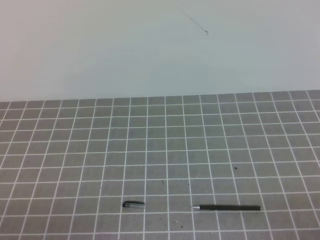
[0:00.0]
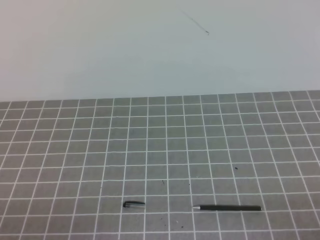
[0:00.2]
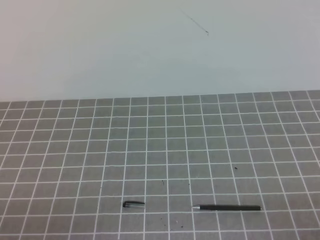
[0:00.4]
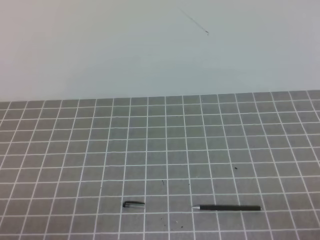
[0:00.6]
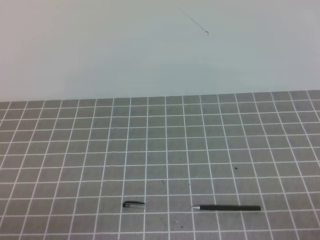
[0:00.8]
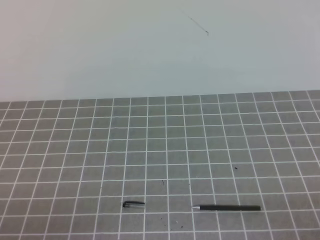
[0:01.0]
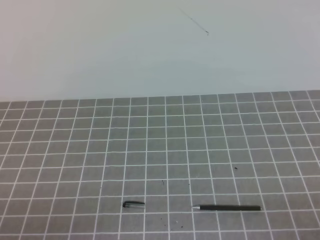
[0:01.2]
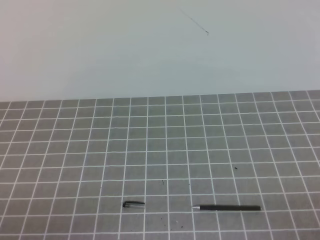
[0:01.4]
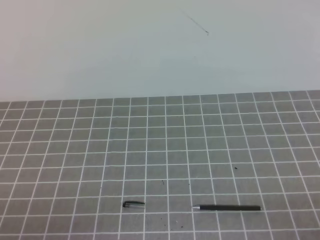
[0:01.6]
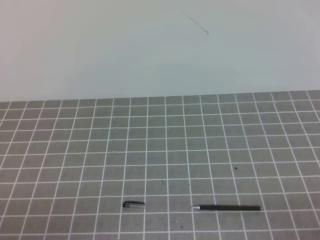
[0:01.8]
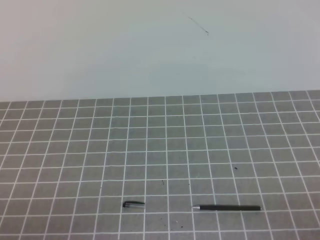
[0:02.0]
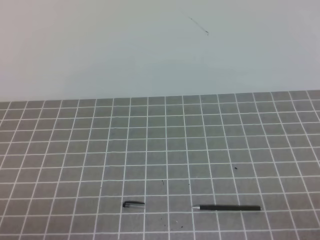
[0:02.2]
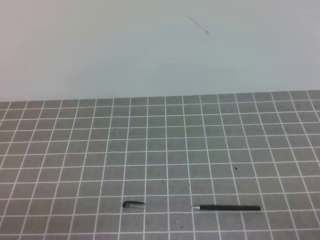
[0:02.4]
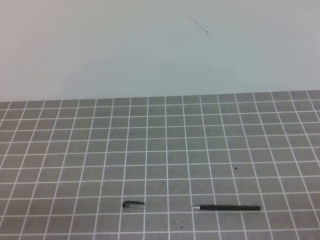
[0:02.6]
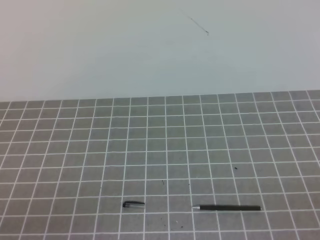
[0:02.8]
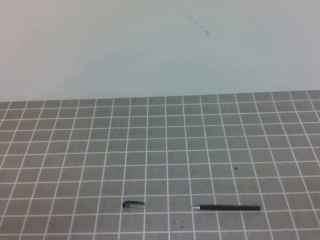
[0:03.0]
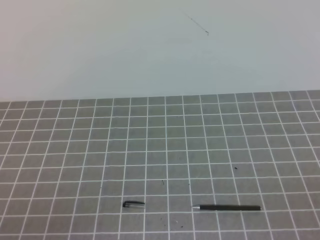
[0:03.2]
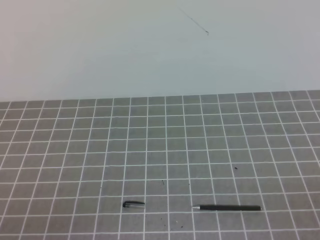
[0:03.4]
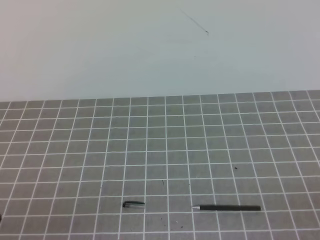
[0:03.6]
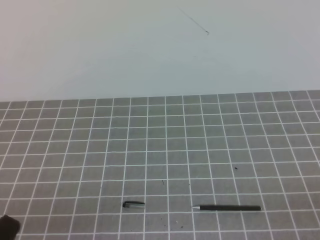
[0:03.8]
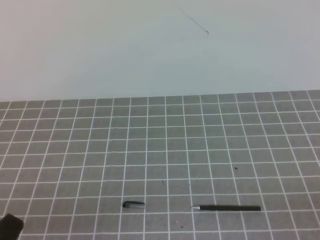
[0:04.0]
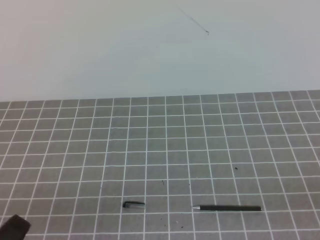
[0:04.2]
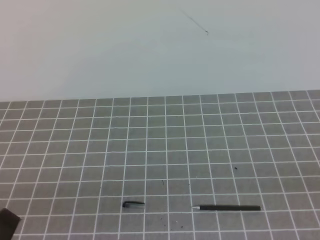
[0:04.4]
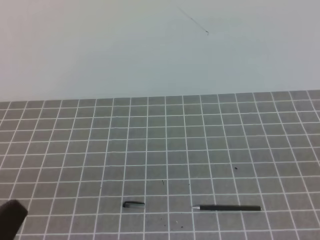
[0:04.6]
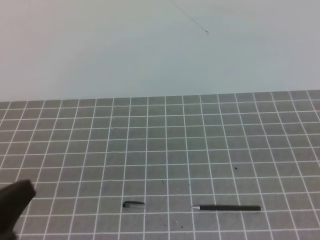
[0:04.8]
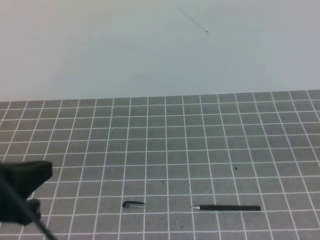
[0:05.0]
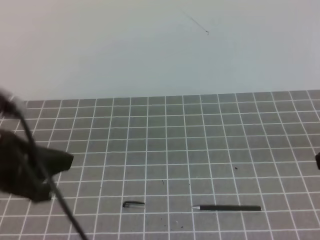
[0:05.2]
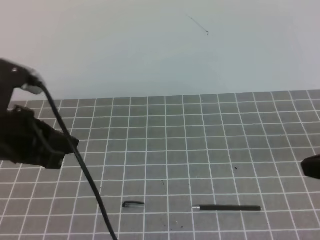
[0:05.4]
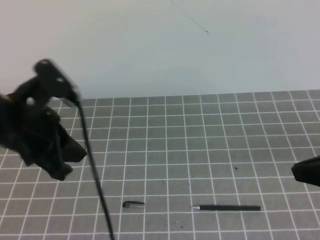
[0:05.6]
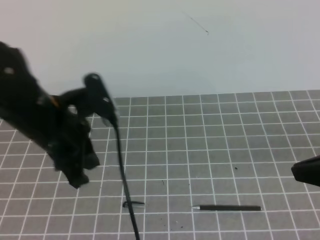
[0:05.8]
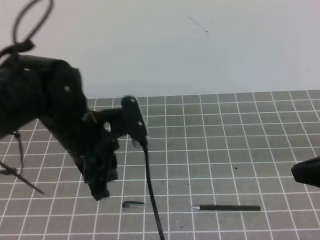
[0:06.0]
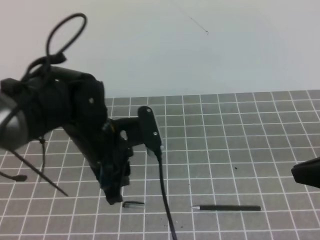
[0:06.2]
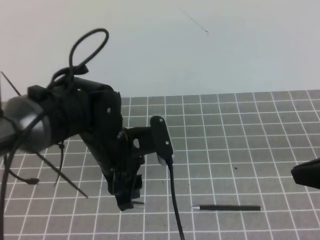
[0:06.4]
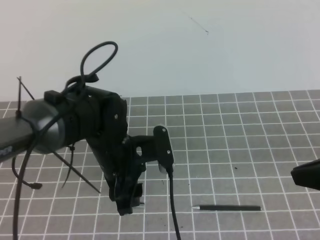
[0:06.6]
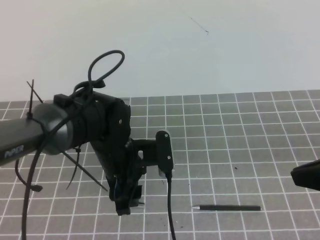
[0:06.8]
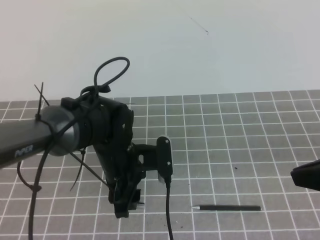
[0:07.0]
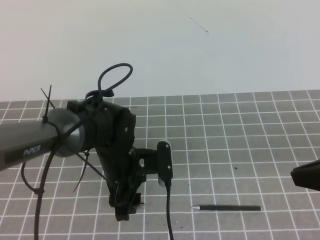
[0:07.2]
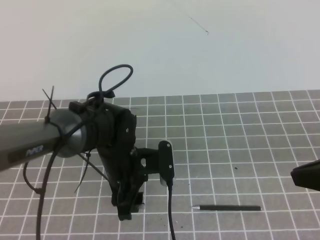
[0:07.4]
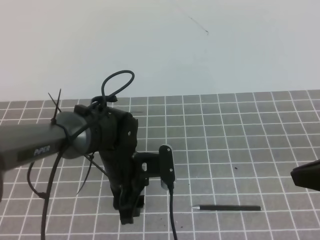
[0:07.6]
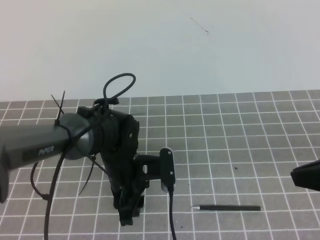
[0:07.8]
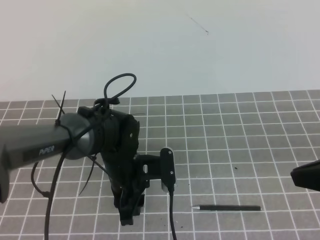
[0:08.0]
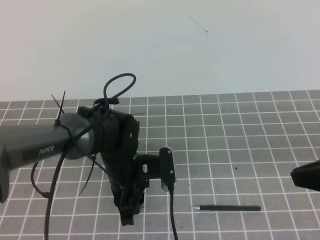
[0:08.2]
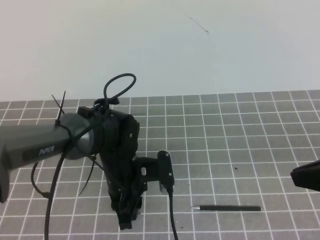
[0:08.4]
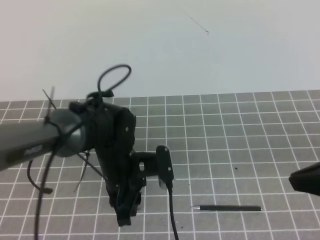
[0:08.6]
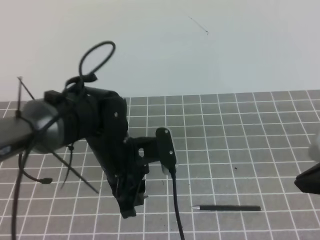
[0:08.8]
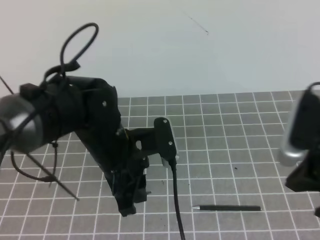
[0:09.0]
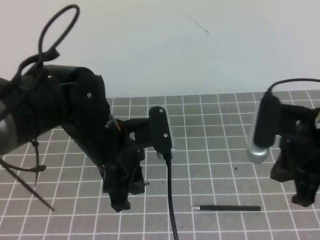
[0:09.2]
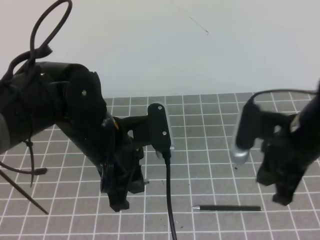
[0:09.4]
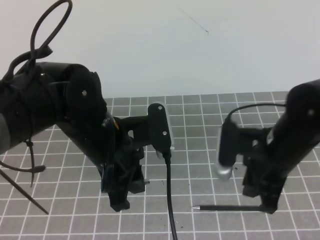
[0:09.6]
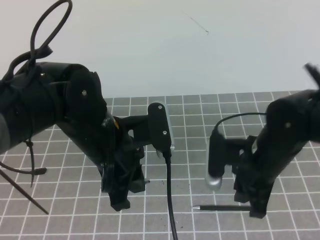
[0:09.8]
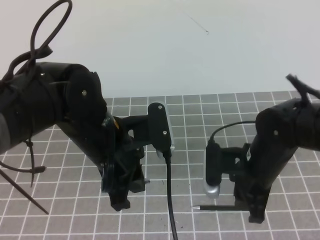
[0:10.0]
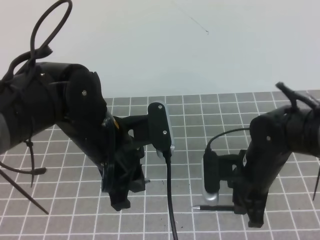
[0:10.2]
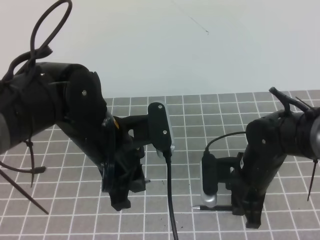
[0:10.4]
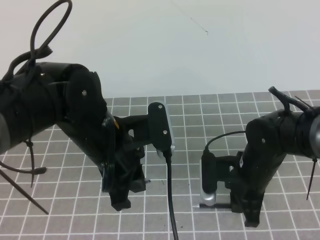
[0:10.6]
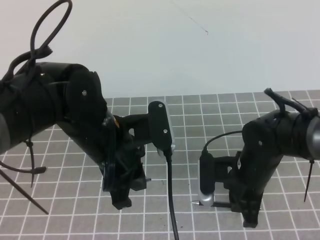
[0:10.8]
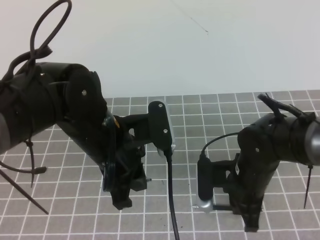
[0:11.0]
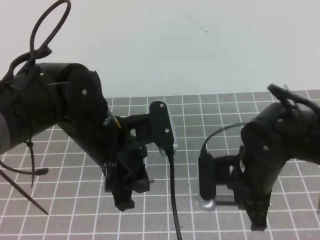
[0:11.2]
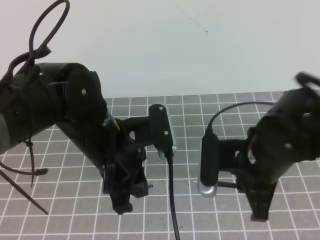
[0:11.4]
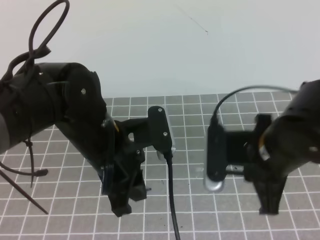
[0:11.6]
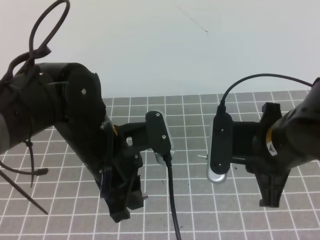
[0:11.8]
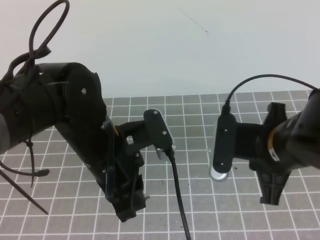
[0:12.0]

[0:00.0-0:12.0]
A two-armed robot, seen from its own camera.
Task of the whole recording: on the grey tablecloth, hold the pen cap in one hand and the pen in the other, then cover the pen cap.
Step, 0:00.0 to 0:05.4: Pick up the pen cap.
Step, 0:05.6 to 0:06.8: Pick up the pen.
Step, 0:07.0 to 0:10.6: Insert the pen into the cap.
Step, 0:10.8 to 0:11.4: Place the pen on the table.
0:00.0 to 0:01.6: Both grippers stay about where they are.
0:04.4 to 0:06.0: The right gripper travels forward and to the left by approximately 15 cm, while the left gripper shifts roughly 25 cm forward and to the right.
0:06.0 to 0:07.6: The left gripper goes about 15 cm downward and to the right, and opens.
0:07.6 to 0:09.0: The left gripper goes about 5 cm upward, and closes up.
0:09.0 to 0:10.4: The right gripper goes about 20 cm downward, forward and to the left, and opens up.
0:10.4 to 0:12.0: The right gripper goes about 15 cm upward and backward, and closes its fingers.

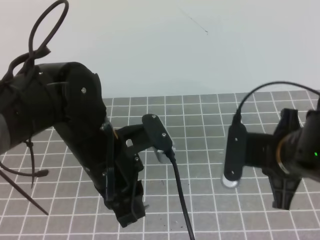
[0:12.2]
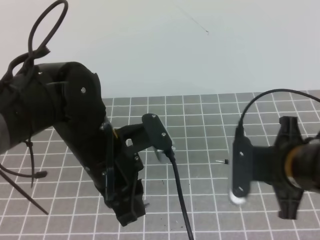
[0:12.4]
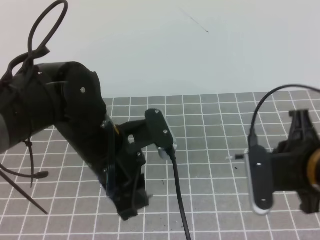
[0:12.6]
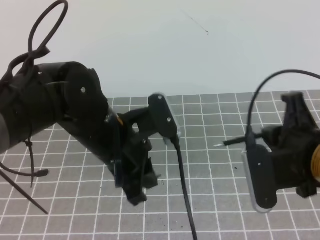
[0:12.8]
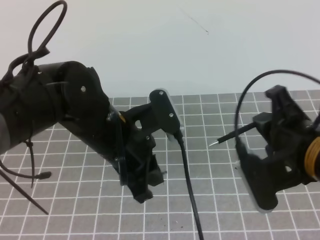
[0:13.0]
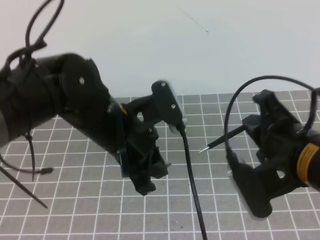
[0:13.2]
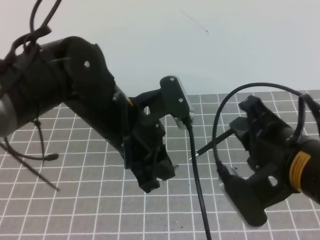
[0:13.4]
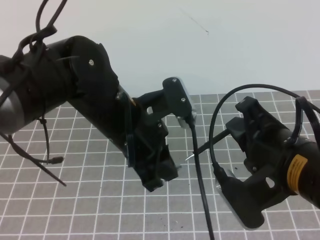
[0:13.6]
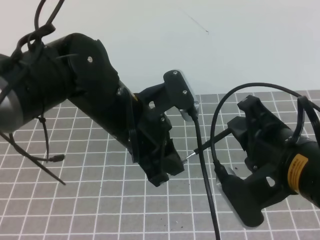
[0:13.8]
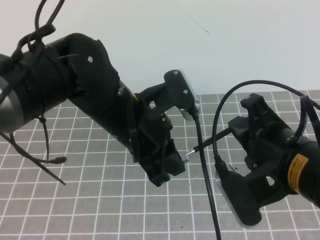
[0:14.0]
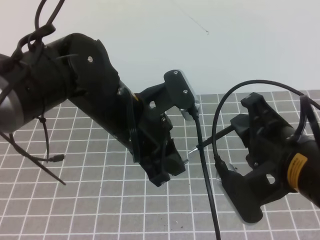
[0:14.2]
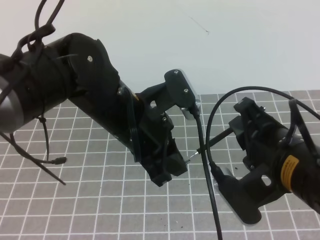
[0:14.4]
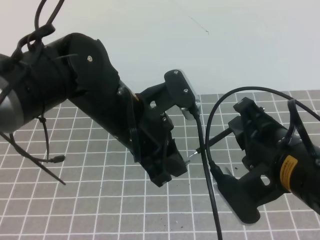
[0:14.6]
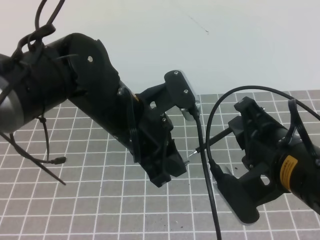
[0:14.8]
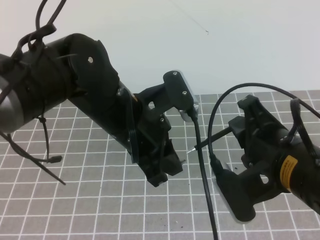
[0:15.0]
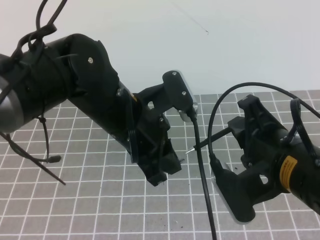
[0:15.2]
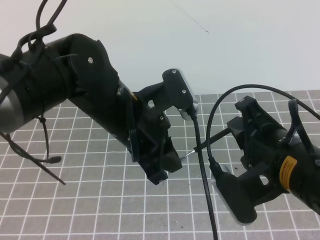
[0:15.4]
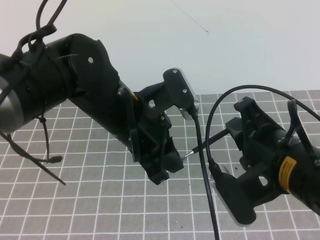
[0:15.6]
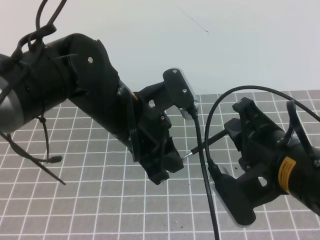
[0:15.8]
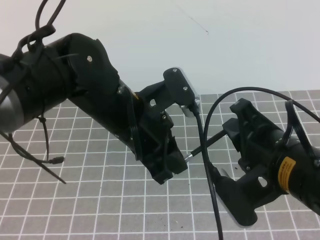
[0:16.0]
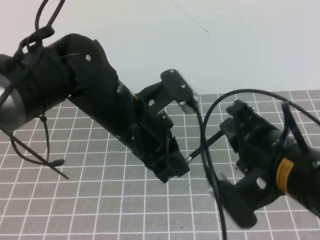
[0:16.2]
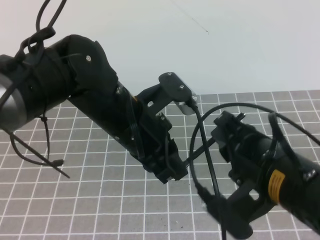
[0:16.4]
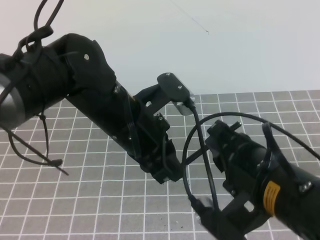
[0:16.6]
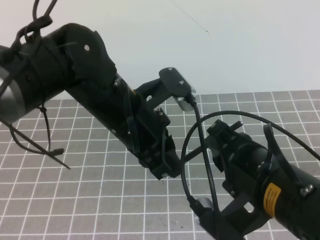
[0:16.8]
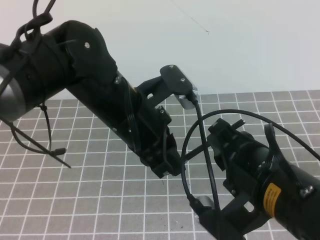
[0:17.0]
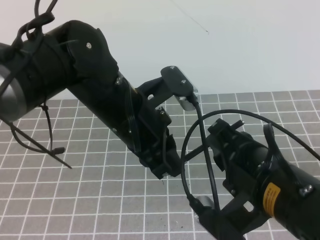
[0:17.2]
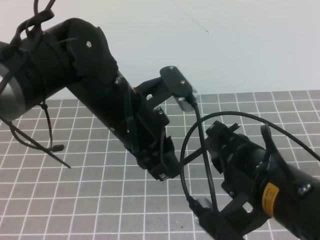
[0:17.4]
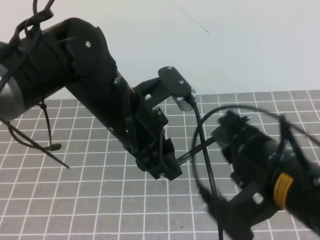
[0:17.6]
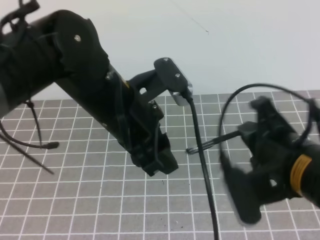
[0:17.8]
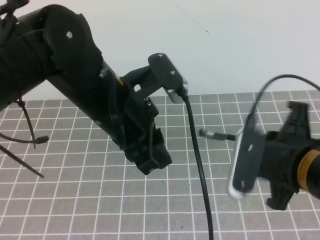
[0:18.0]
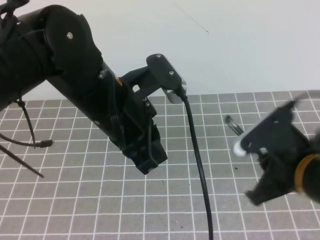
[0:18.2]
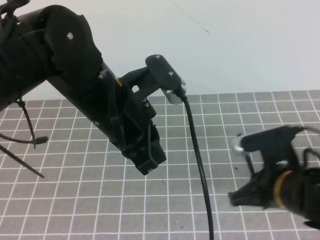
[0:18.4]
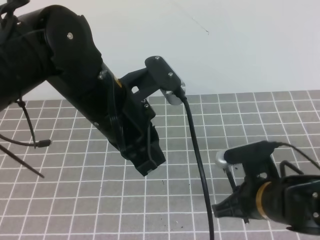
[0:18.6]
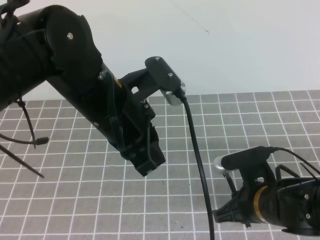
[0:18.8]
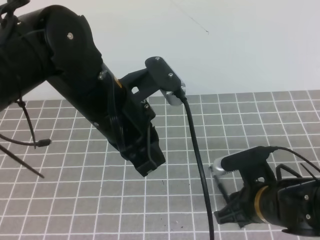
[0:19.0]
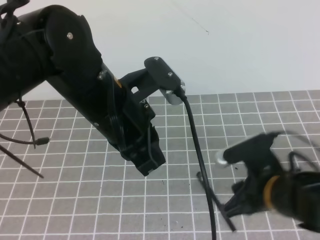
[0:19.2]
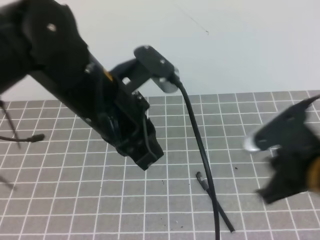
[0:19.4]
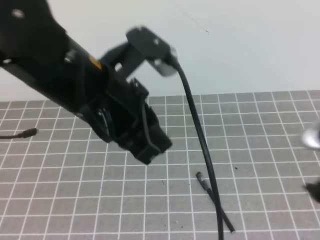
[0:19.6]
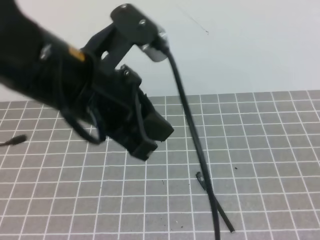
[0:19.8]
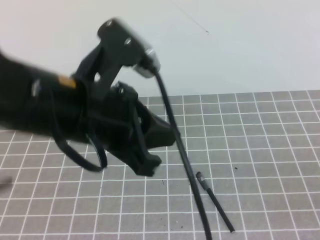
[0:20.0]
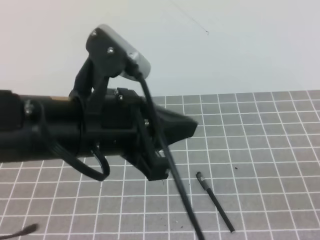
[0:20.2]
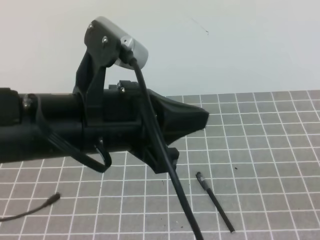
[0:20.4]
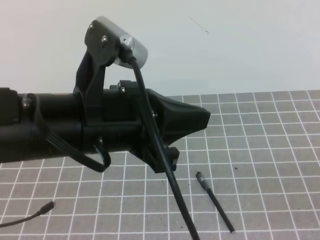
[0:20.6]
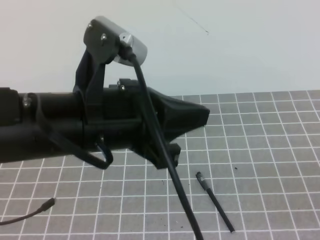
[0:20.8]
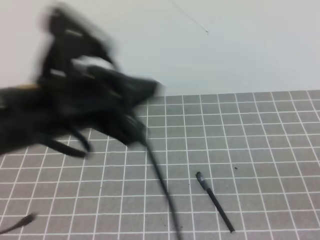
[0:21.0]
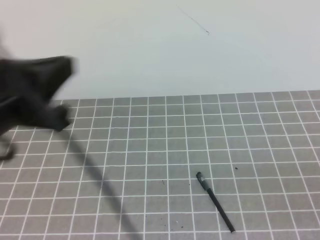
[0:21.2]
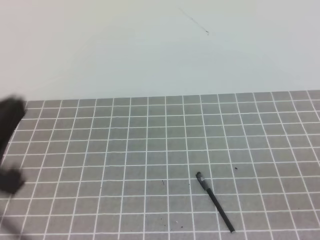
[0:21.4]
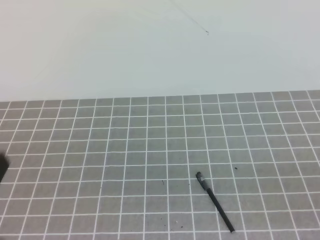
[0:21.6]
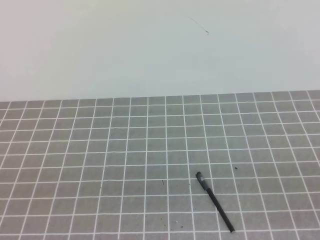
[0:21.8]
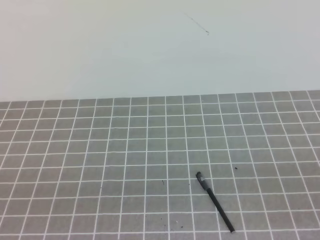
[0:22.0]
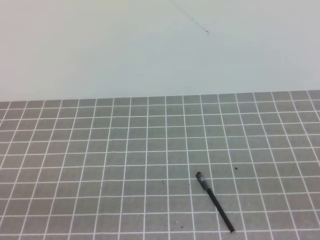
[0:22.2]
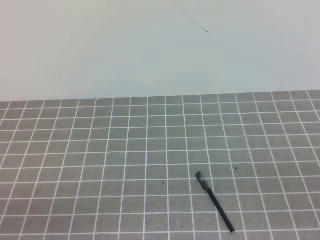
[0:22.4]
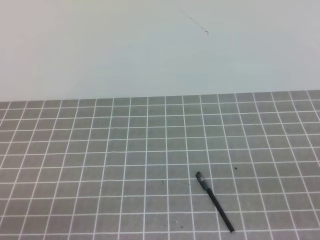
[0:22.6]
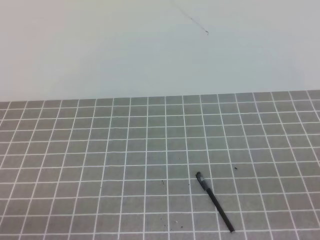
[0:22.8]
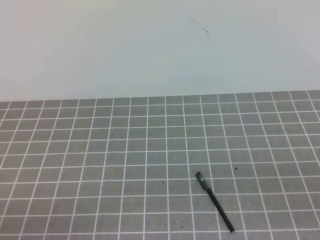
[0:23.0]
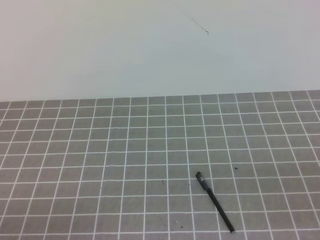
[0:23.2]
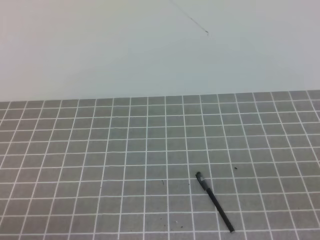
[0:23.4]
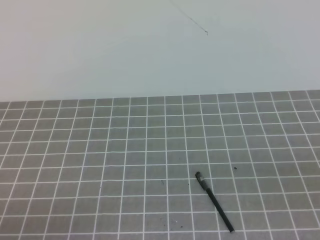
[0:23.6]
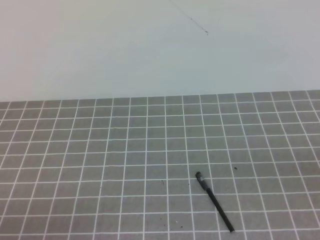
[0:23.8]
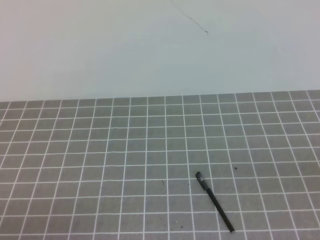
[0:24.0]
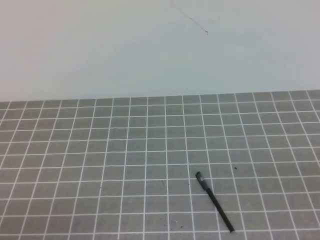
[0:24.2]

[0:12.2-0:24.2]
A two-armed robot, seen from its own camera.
Task of the whole recording: on the grey tablecloth, hold the pen cap in one hand and the pen in the other, then cover the pen cap.
0:12.2 to 0:13.8: The right gripper ends up some 5 cm from where it was.
0:13.8 to 0:15.2: Both grippers stay about where they are.
0:16.6 to 0:18.2: The left gripper opens, then closes again; the right gripper is displaced to the right by roughly 5 cm.
0:18.2 to 0:19.8: The right gripper heads backward, to the right and upward, covering about 15 cm, and opens, then closes again, while the left gripper is displaced upward by about 5 cm.
0:19.8 to 0:21.2: The left gripper shifts some 10 cm to the left. Meanwhile the right gripper moves roughly 5 cm.
0:21.2 to 0:22.6: The left gripper heads downward, backward and to the left, covering about 25 cm.
